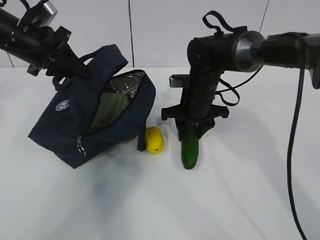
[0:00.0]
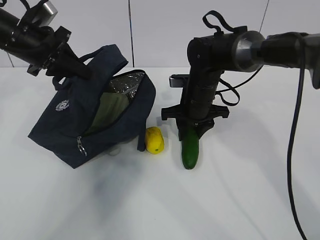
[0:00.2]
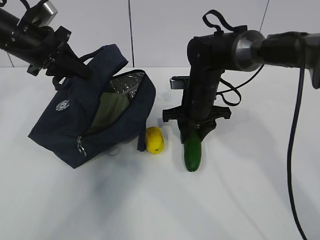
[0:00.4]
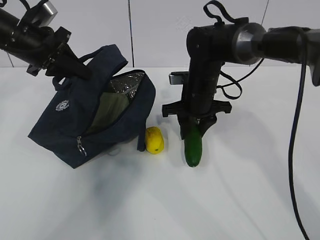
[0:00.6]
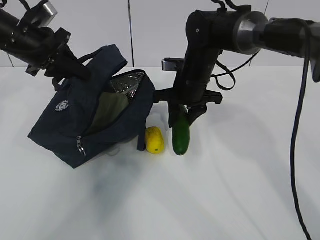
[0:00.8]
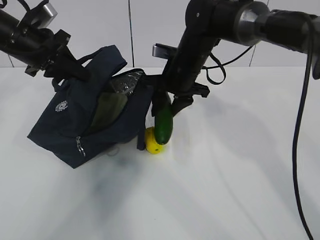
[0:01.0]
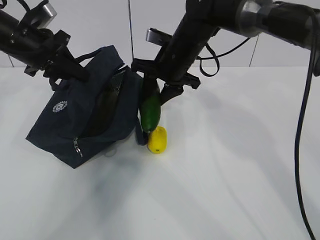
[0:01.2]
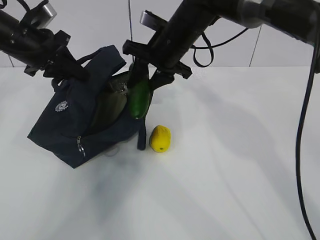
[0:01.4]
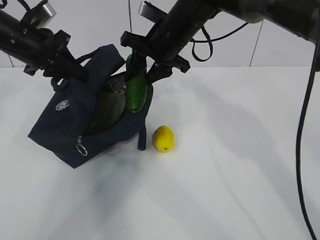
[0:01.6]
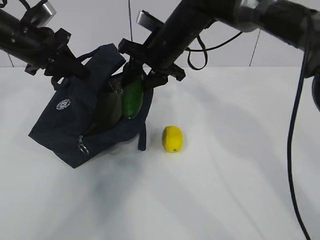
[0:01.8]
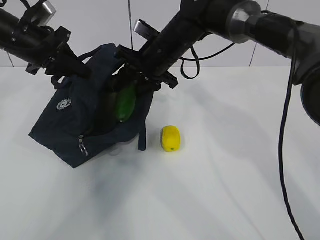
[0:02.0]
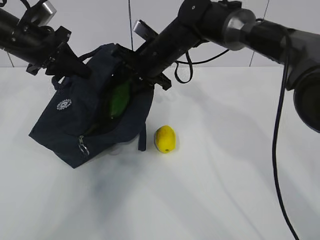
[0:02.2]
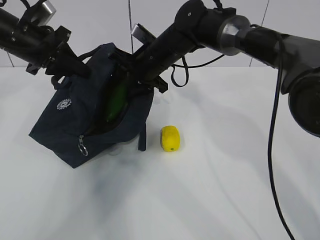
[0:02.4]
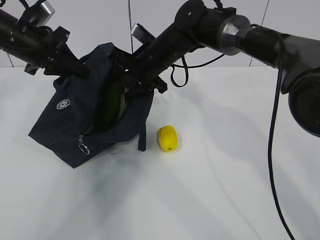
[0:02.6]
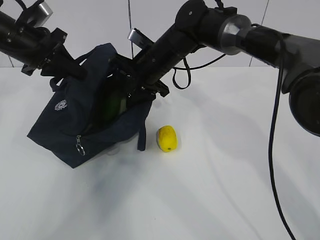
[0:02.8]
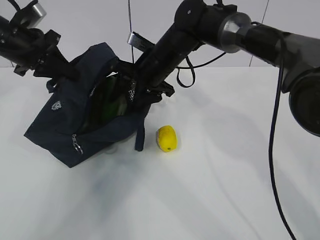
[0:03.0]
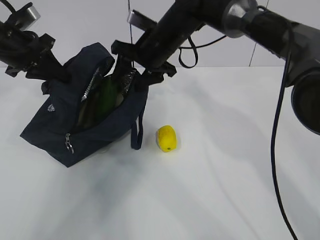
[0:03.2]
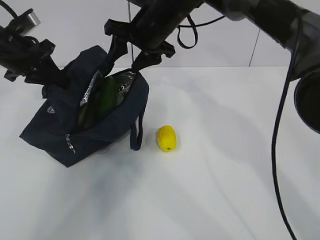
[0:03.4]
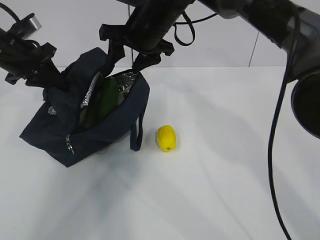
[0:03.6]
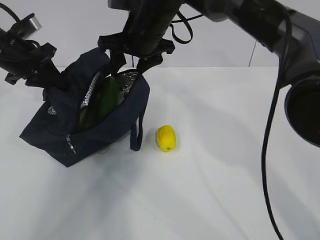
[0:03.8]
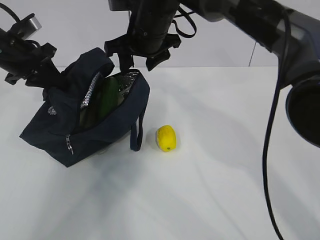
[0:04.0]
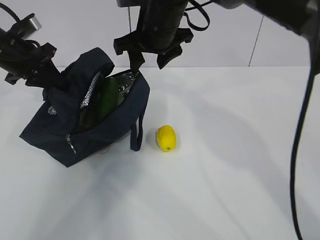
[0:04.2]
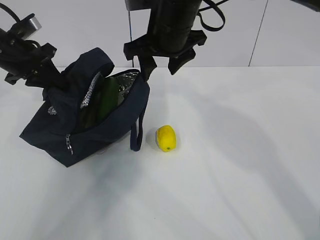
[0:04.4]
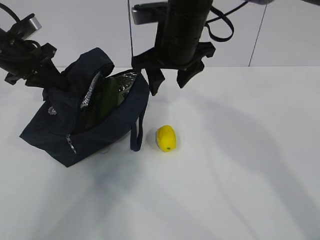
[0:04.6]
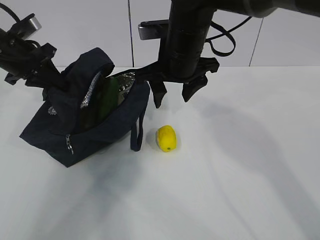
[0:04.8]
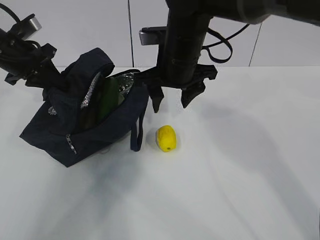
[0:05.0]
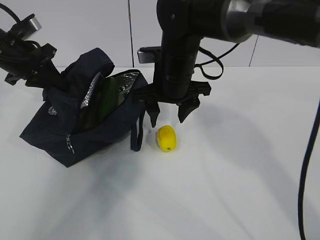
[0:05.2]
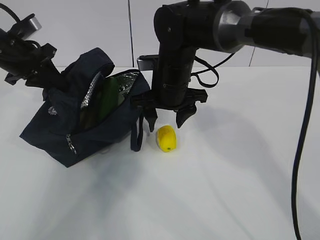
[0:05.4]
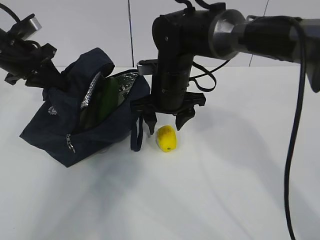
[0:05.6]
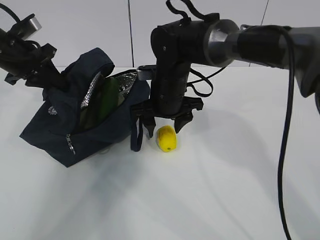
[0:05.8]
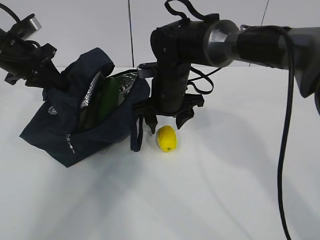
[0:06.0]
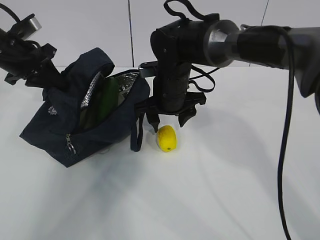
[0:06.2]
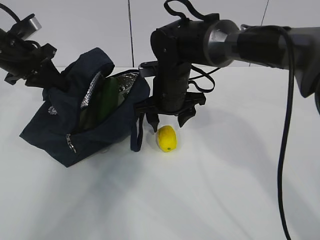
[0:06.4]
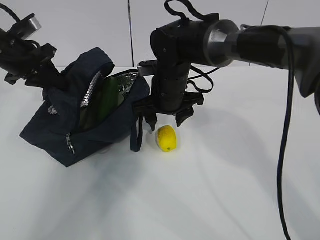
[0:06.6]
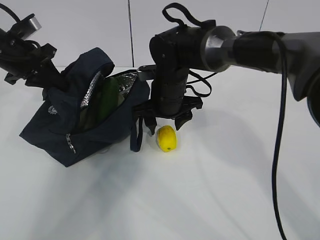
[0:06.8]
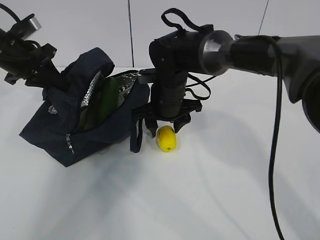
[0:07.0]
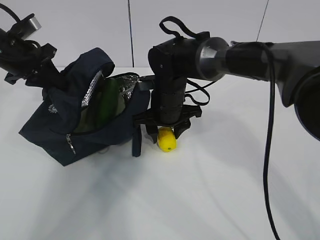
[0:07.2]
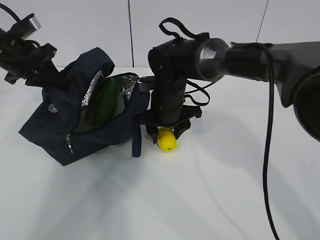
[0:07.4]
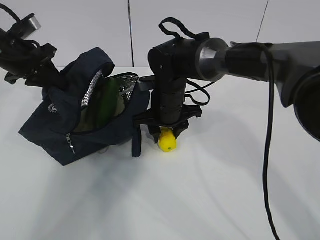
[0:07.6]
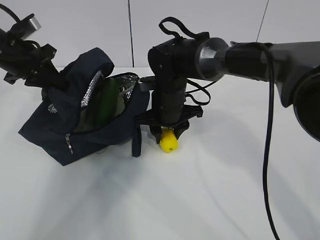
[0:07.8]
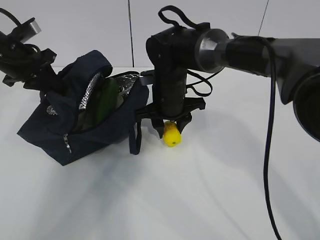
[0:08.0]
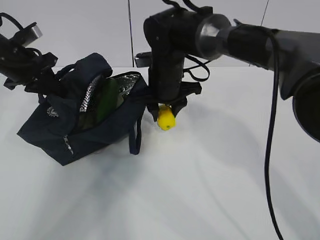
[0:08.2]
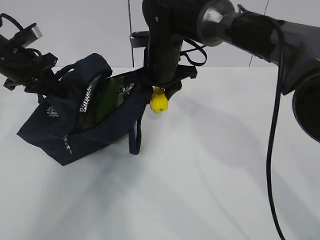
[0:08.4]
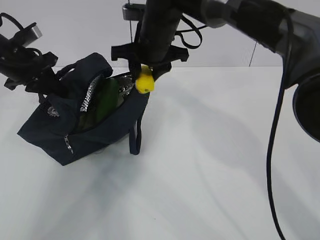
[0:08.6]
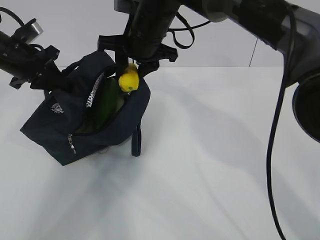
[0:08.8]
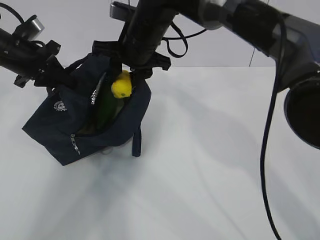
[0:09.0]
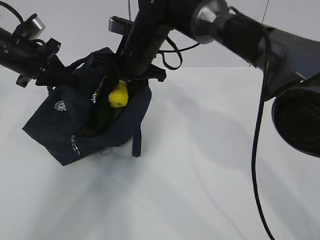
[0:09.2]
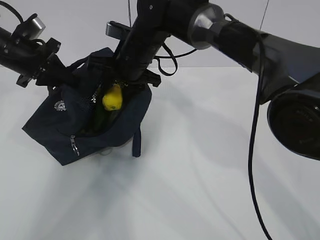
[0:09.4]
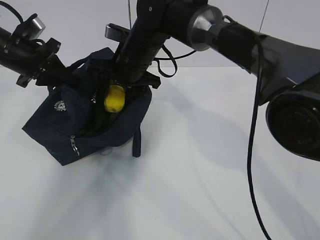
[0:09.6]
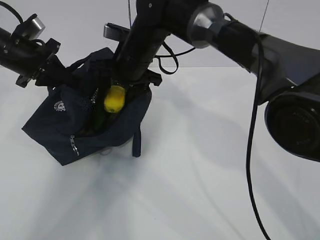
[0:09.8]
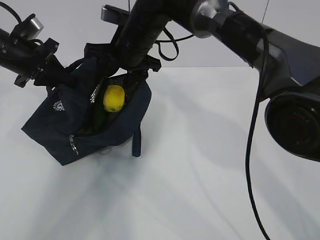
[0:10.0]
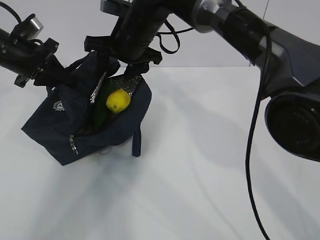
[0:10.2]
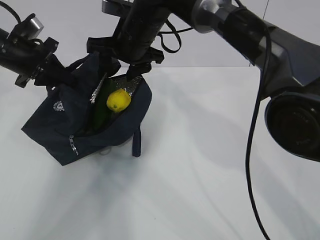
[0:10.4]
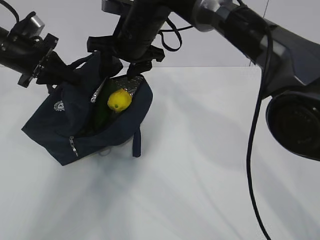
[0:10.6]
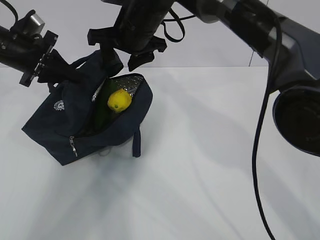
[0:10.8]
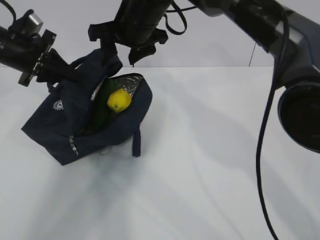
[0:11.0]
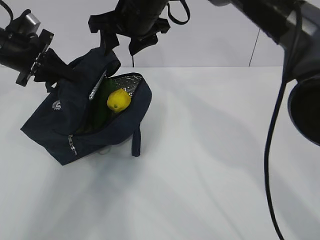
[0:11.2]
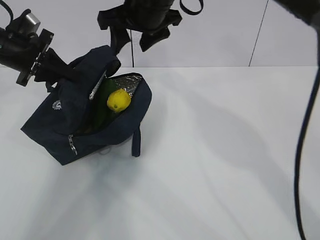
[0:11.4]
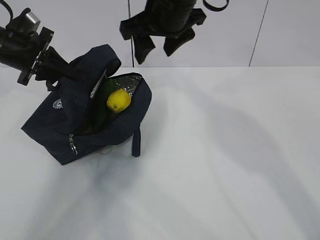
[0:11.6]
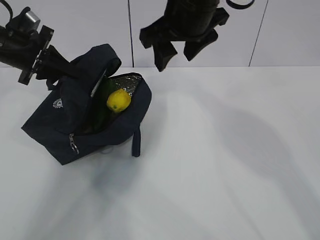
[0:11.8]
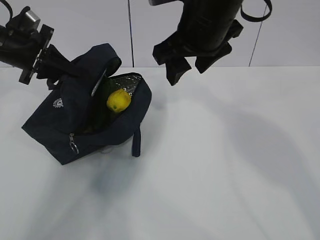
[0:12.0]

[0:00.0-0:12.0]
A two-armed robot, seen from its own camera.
Step, 0:00.0 to 0:02.2: Grab the lemon with your right hand.
Step, 0:02.4 to 0:04.0: Secure the lunch bag with your left hand.
Step, 0:04.2 to 0:09.4: Grab the lunch bag with your right hand.
Step, 0:09.6 to 0:11.4: Move the lunch bag to the right.
0:00.0 to 0:01.6: The right gripper is displaced upward by some 10 cm.
0:01.6 to 0:03.0: The right gripper is displaced downward by about 5 cm.
0:03.0 to 0:04.4: The right gripper shifts approximately 10 cm upward and backward.
0:04.4 to 0:06.0: The right gripper travels downward by some 10 cm.
0:06.0 to 0:07.6: The grippers make only small movements.
0:07.6 to 0:09.0: The right gripper is displaced upward by approximately 10 cm.
0:09.0 to 0:10.4: The grippers stay close to where they were, moving slightly.
0:10.4 to 0:12.0: The right gripper goes approximately 15 cm backward, to the right and upward.

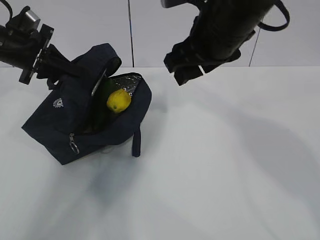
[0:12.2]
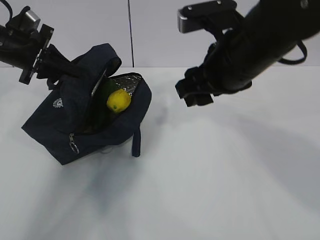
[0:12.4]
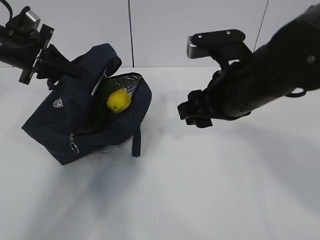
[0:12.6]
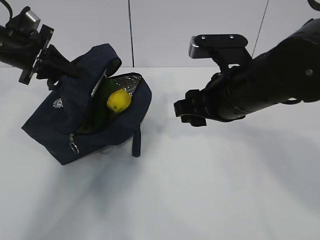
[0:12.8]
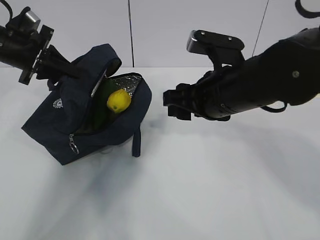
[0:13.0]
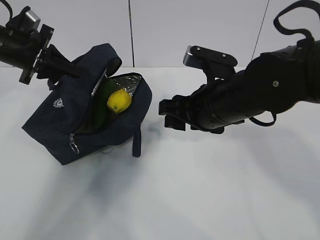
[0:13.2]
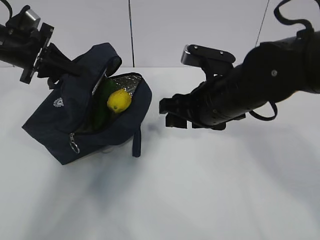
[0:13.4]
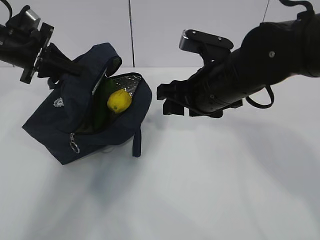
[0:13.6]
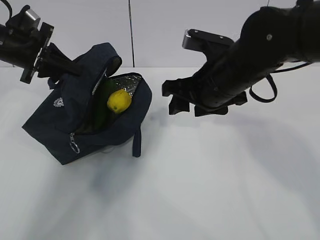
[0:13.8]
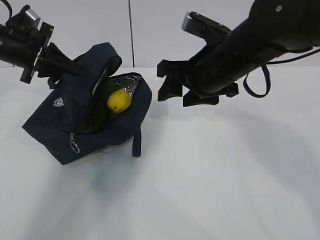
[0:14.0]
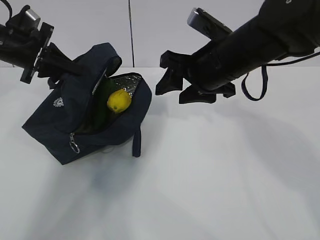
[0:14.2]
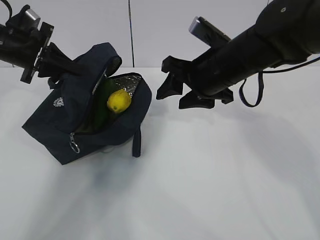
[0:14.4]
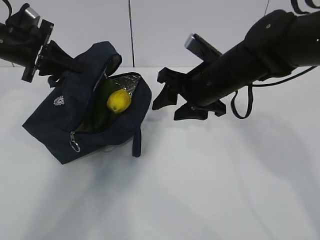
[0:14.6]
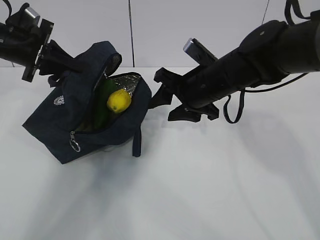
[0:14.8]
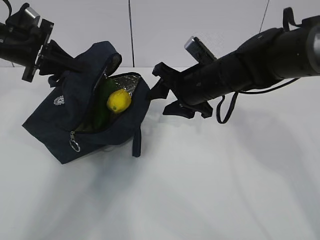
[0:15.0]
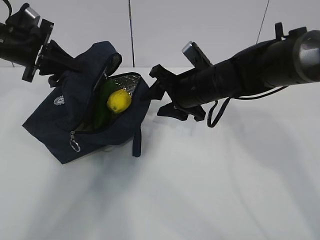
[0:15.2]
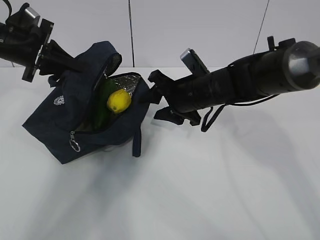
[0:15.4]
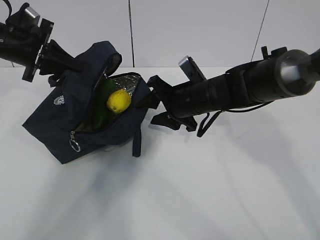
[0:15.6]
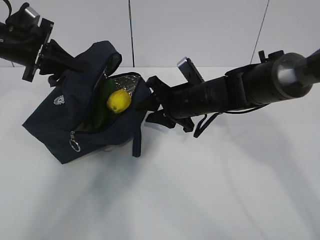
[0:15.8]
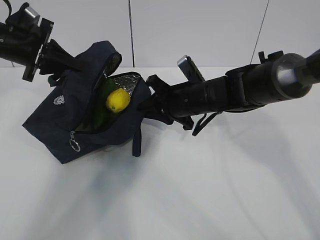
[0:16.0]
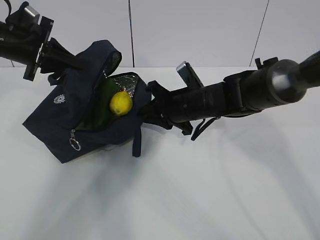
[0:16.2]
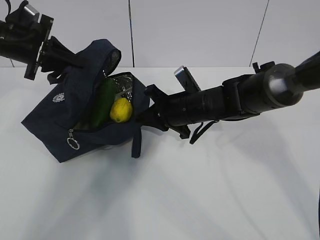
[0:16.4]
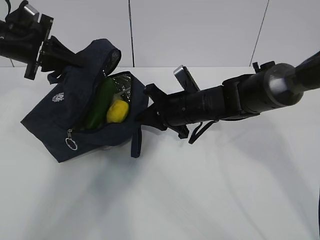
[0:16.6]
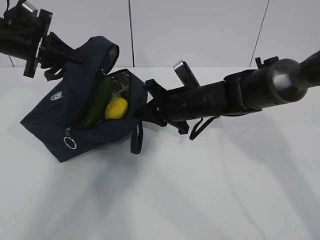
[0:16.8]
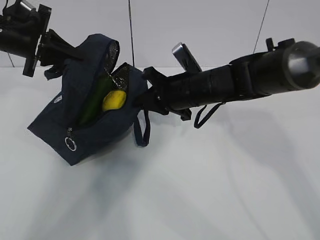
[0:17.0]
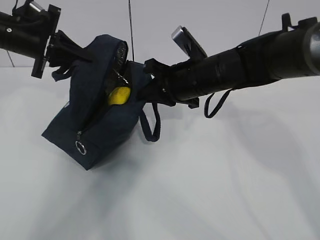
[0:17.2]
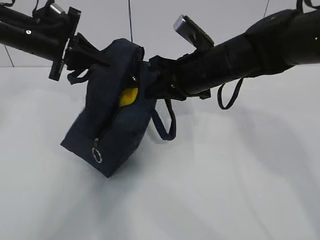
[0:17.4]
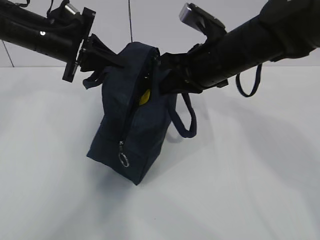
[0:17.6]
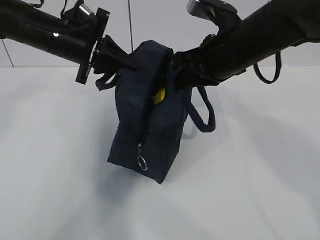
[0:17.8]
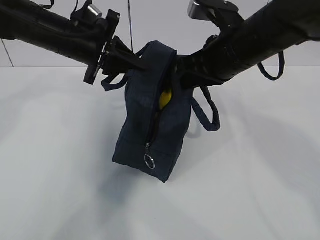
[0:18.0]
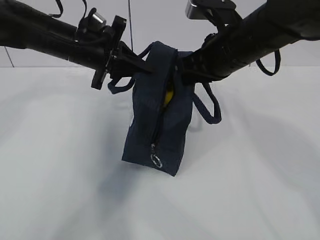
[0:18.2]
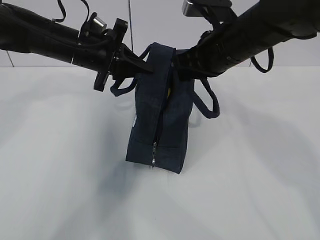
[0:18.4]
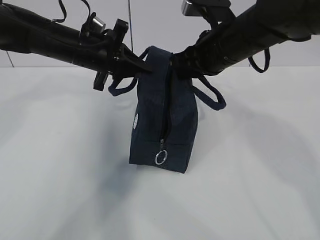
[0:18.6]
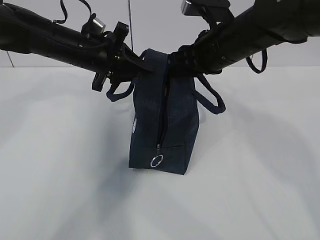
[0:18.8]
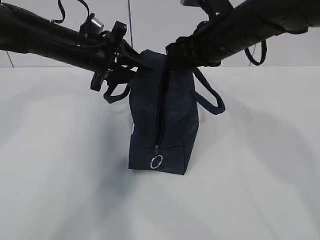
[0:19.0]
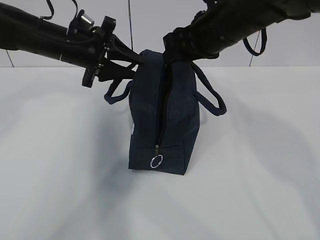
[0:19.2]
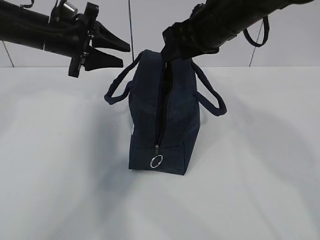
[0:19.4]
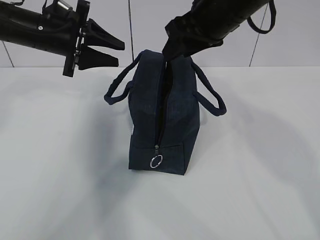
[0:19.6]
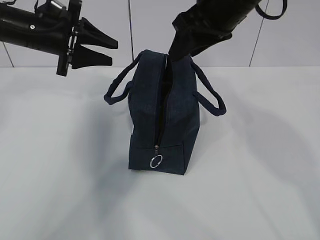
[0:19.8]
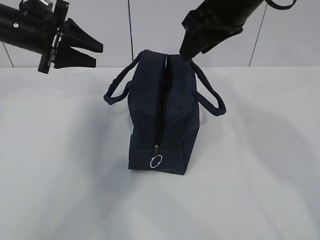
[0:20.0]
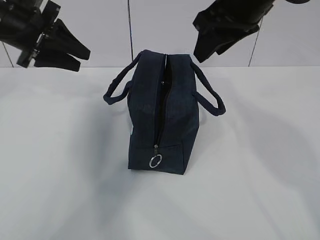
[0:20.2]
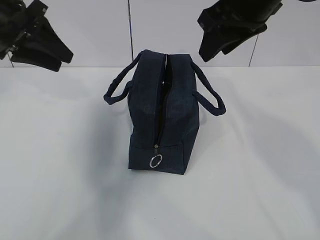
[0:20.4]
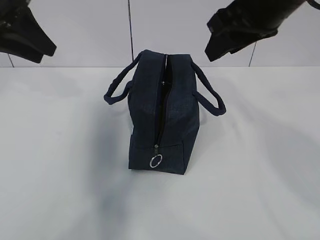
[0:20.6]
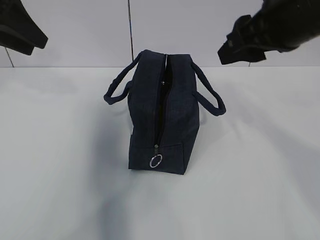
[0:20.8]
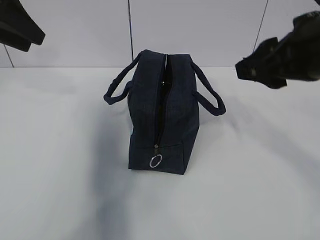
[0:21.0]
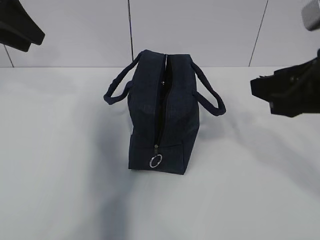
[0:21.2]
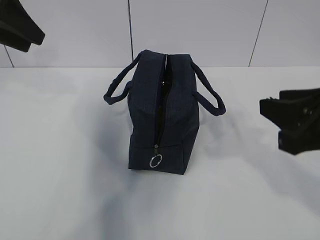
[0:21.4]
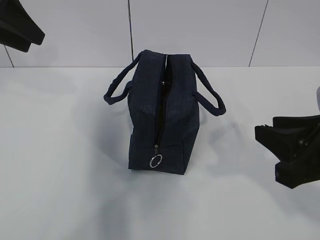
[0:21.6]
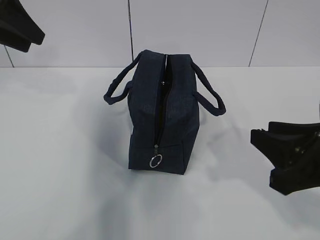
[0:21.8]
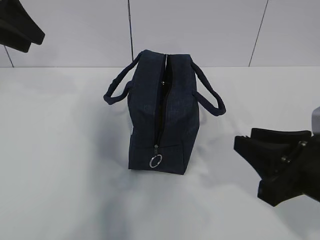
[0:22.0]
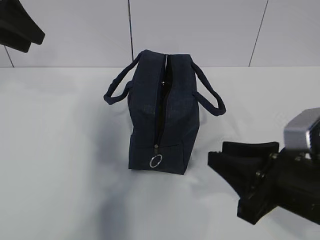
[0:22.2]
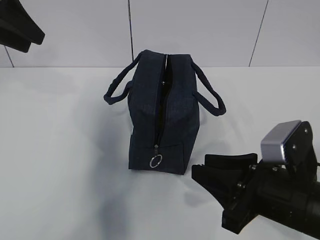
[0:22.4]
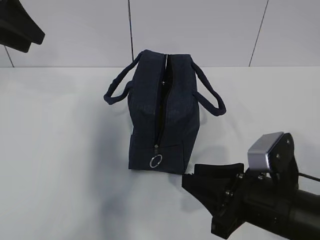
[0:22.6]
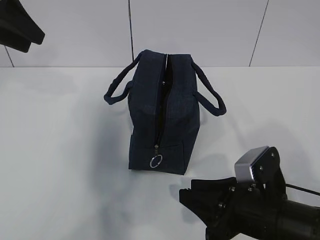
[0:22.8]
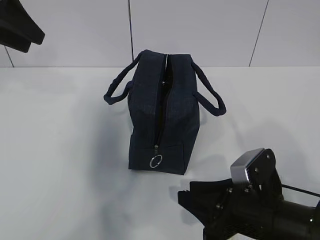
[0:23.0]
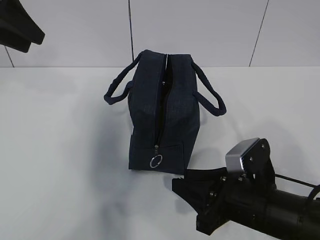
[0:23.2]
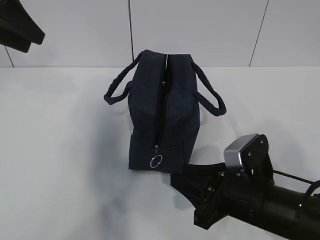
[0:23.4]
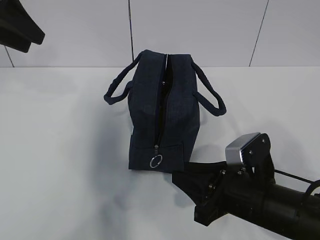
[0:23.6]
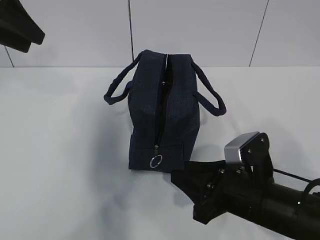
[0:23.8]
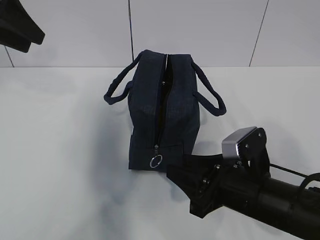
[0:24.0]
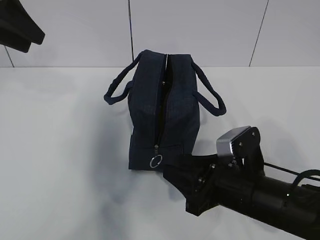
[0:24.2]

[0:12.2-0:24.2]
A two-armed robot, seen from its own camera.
0:12.2 to 0:13.8: The right gripper moves downward, some 10 cm.
0:13.8 to 0:15.2: The right gripper goes approximately 10 cm forward and downward.
0:15.2 to 0:16.6: The right gripper moves some 5 cm, and closes.
0:16.6 to 0:18.2: The left gripper is displaced to the right by about 15 cm; the right gripper travels upward by some 15 cm.
0:18.2 to 0:19.8: The right gripper heads upward, covering approximately 10 cm, and opens its fingers; the left gripper shifts roughly 10 cm to the left, and opens up.
0:19.8 to 0:21.2: The right gripper heads backward and to the right, covering roughly 20 cm, while the left gripper goes approximately 15 cm upward and backward.
0:21.2 to 0:22.6: The right gripper travels downward by approximately 15 cm.
0:22.6 to 0:24.2: The grippers make only small movements.
